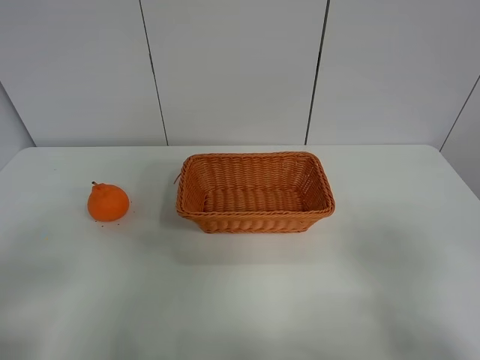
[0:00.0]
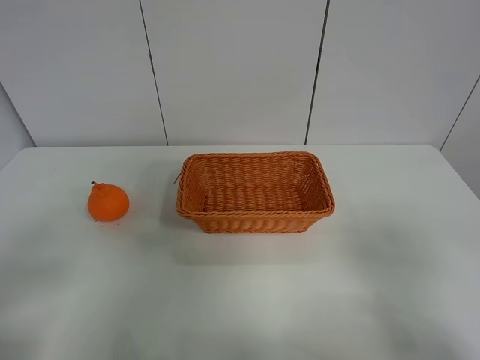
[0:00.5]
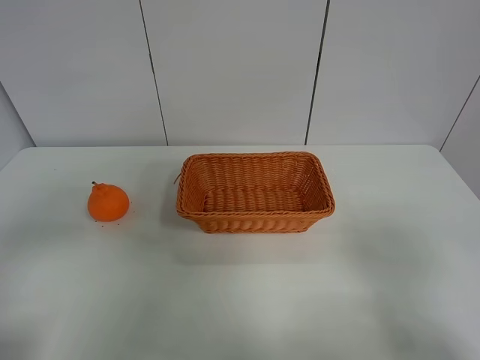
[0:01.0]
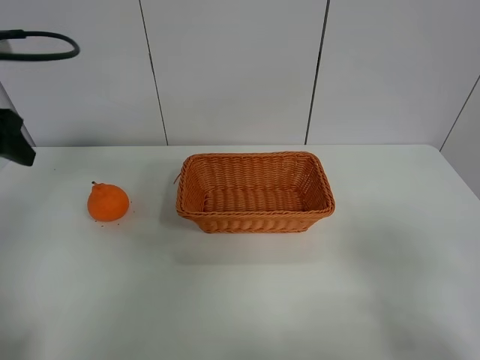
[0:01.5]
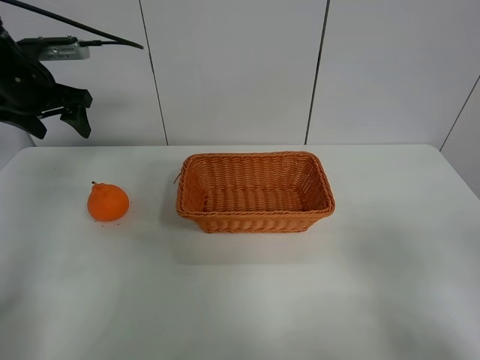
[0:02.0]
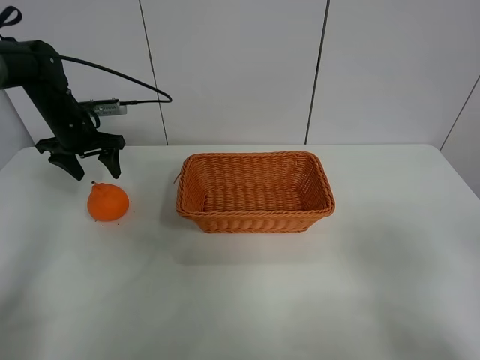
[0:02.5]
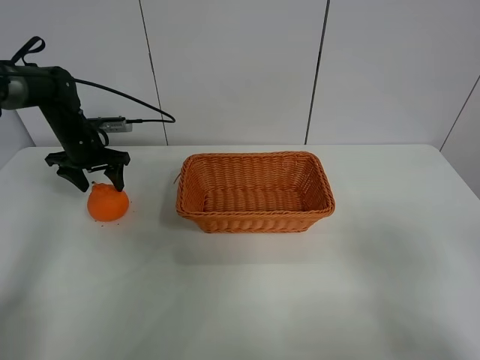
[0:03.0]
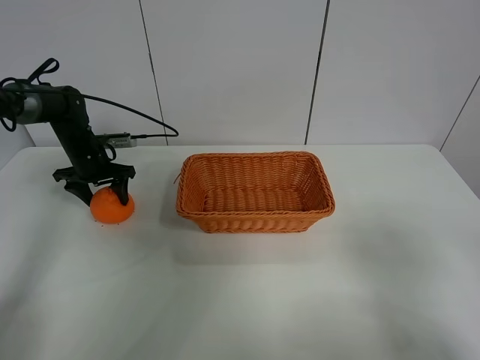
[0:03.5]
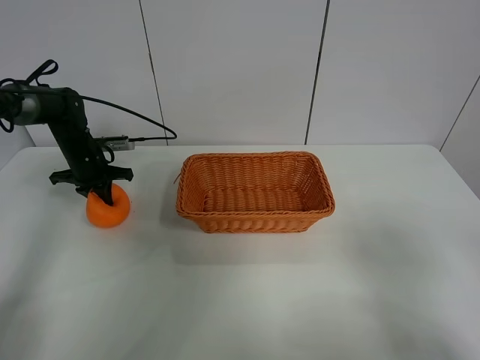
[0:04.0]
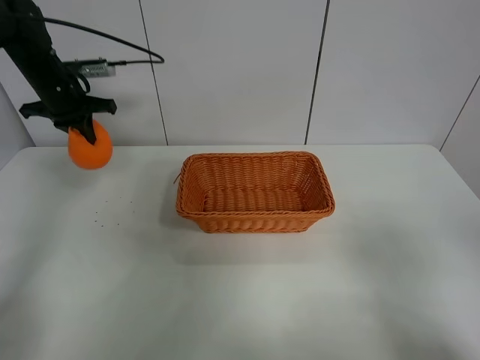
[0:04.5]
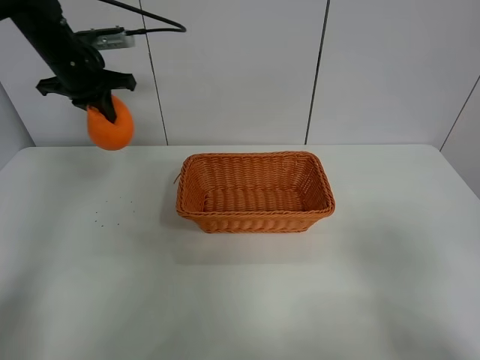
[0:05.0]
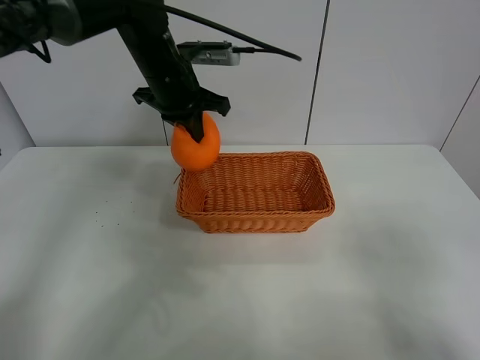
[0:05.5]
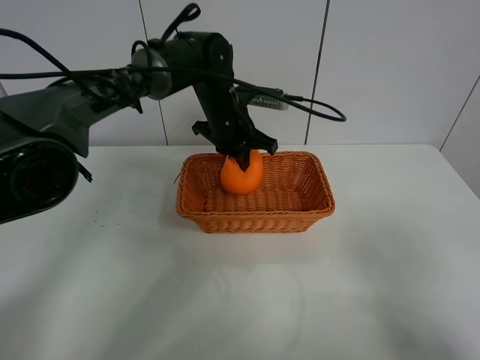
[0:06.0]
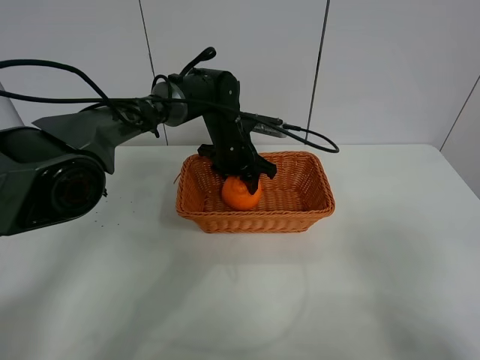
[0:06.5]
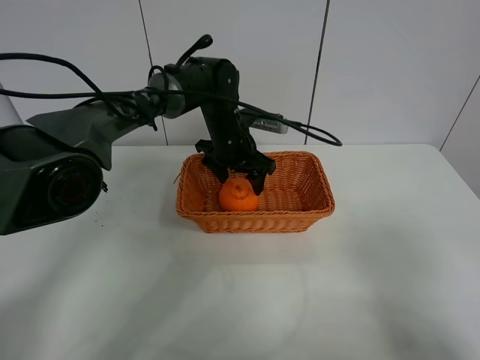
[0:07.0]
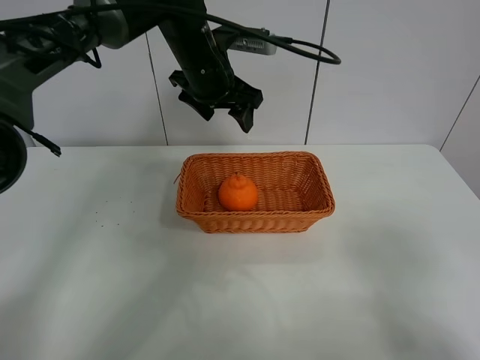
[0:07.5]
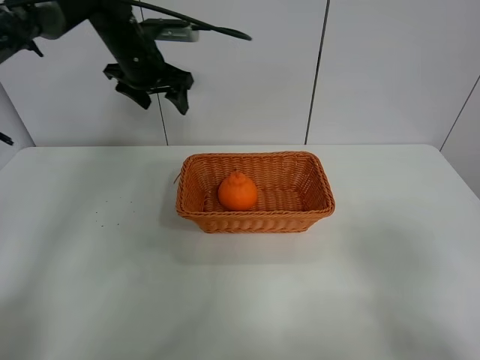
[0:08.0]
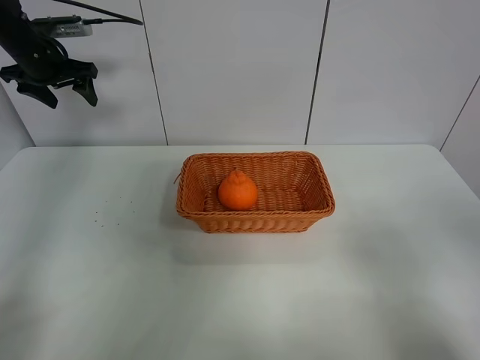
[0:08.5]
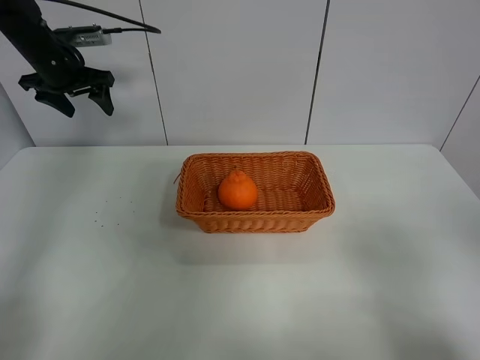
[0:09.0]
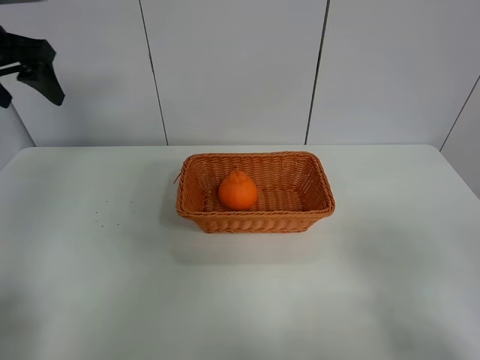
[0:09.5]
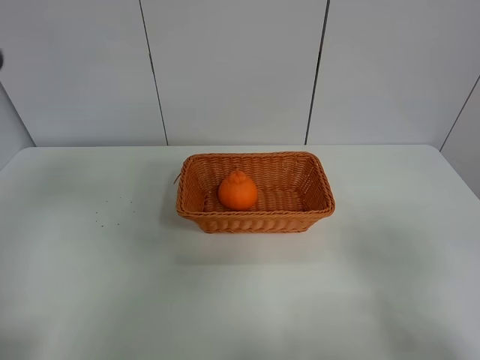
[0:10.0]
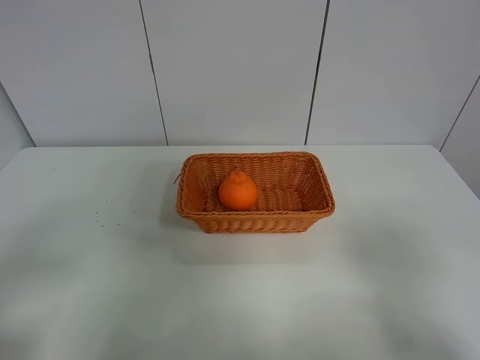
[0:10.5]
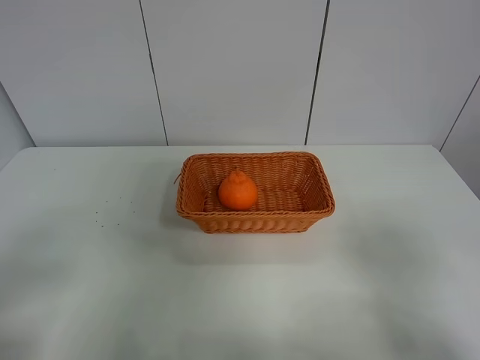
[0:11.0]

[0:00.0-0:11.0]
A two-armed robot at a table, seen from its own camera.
Task of the whole recording: left gripper grabs oranges and puts them in the basket.
Step, 0:00.0 to 0:03.5: Grasp the orange with left gripper.
Step, 0:04.0 to 0:08.0: Place the orange in the basket with left gripper.
0:00.0 to 0:02.0: The left gripper shifts approximately 40 cm forward.
0:02.0 to 0:03.5: The left gripper shifts approximately 20 cm downward.
0:03.5 to 0:05.5: The left gripper is displaced to the right and upward by roughly 25 cm, and closes up.
0:05.5 to 0:07.5: The left gripper travels downward and back again, approximately 15 cm each way, and opens up.
0:07.5 to 0:09.0: The left gripper travels to the left by about 25 cm.
0:09.0 to 0:11.0: The left gripper goes about 50 cm backward.
